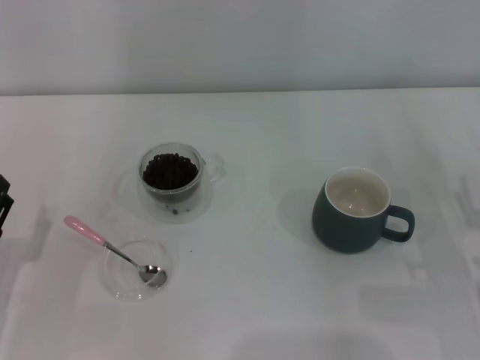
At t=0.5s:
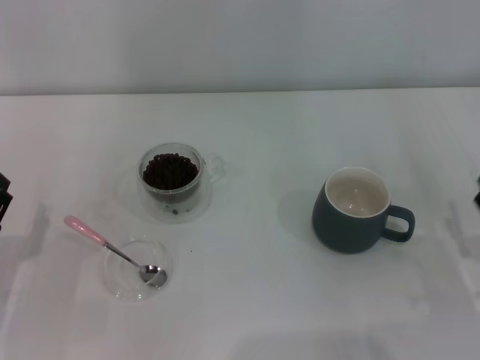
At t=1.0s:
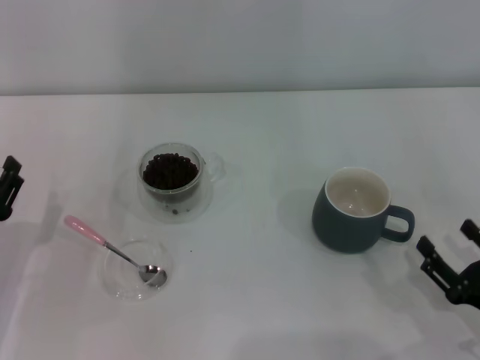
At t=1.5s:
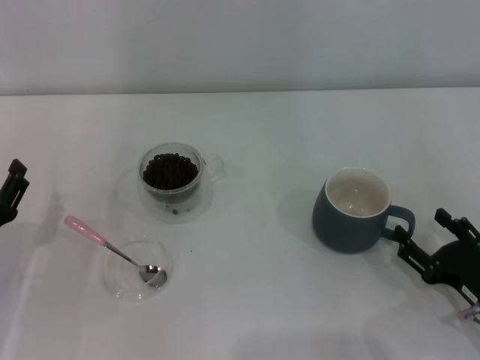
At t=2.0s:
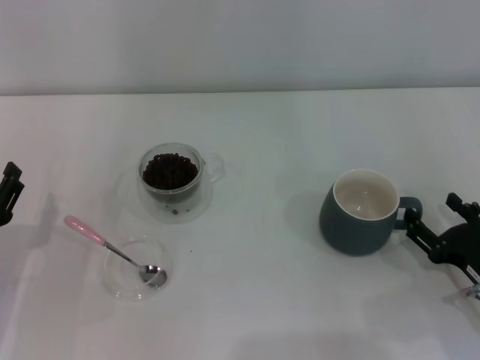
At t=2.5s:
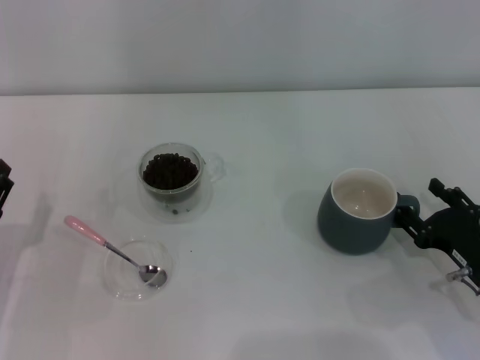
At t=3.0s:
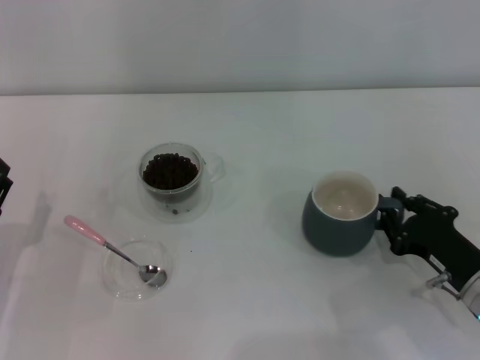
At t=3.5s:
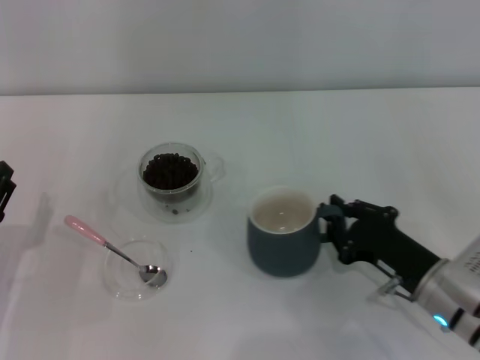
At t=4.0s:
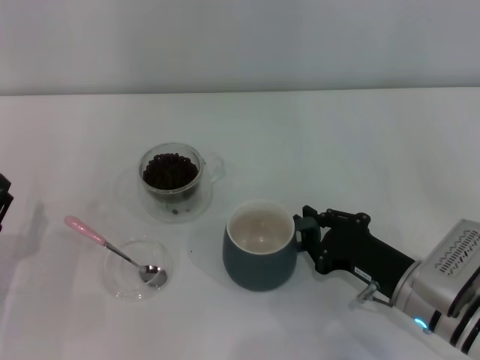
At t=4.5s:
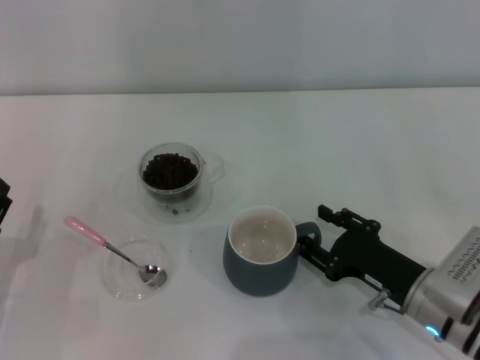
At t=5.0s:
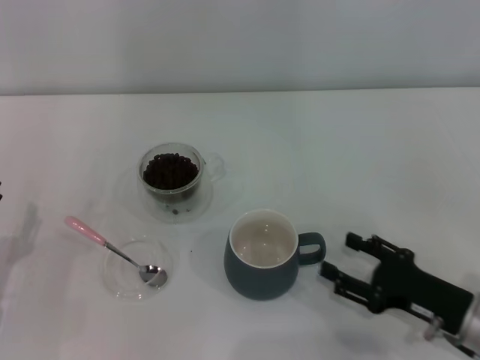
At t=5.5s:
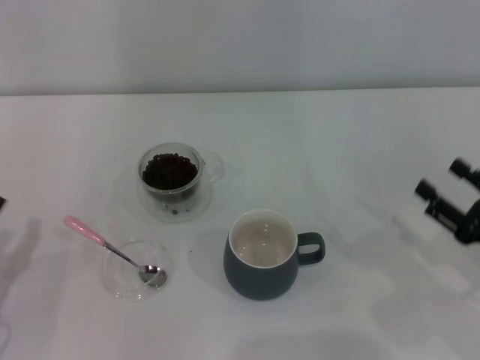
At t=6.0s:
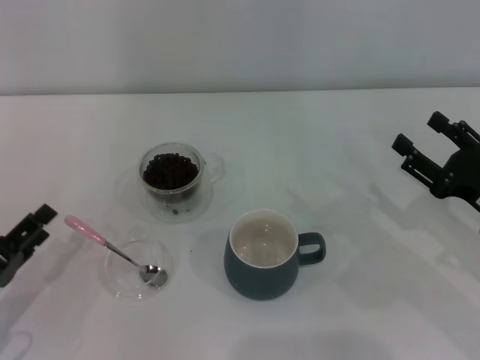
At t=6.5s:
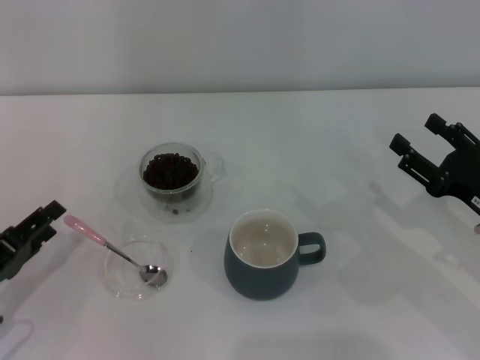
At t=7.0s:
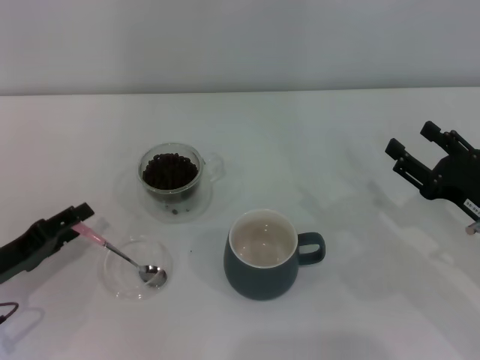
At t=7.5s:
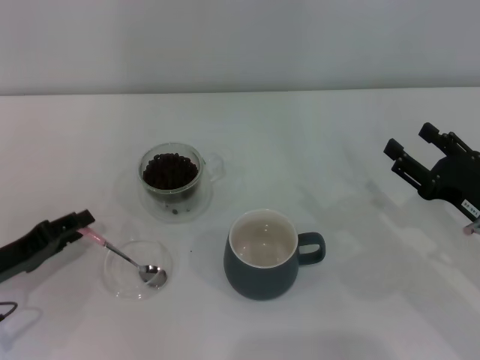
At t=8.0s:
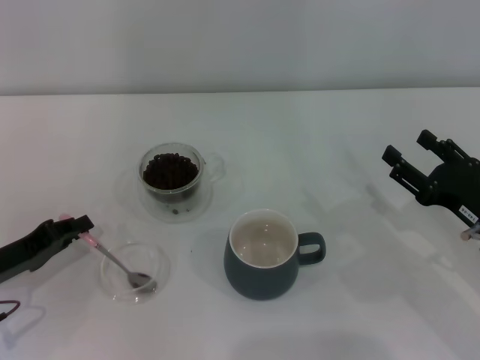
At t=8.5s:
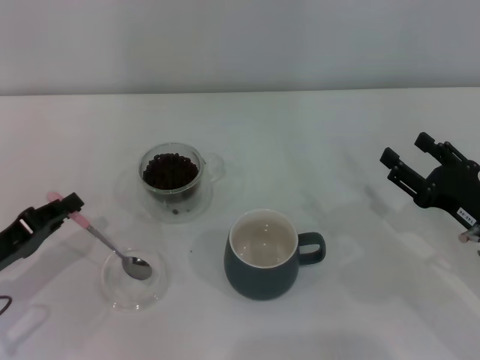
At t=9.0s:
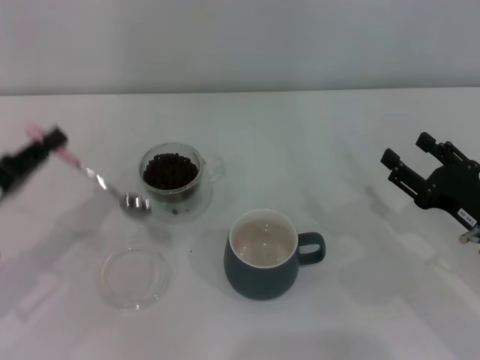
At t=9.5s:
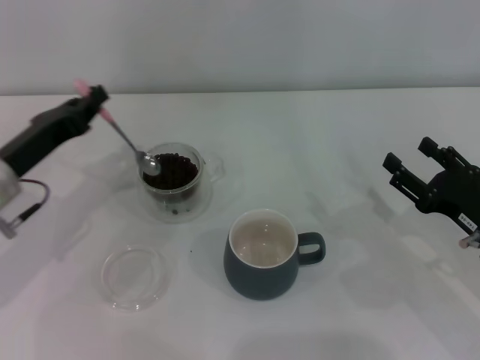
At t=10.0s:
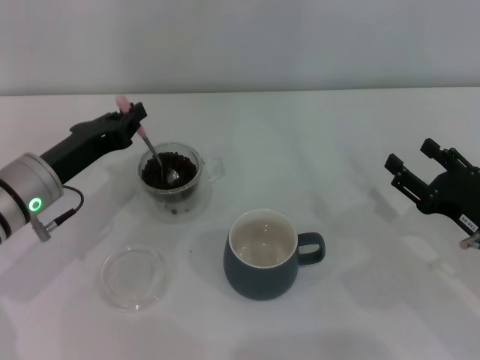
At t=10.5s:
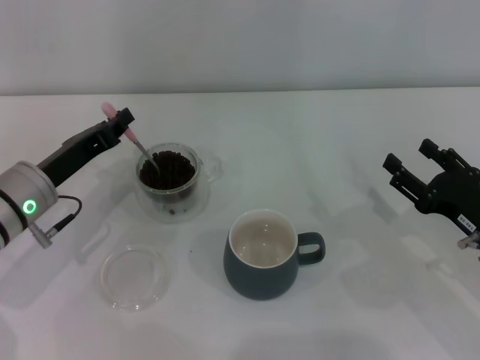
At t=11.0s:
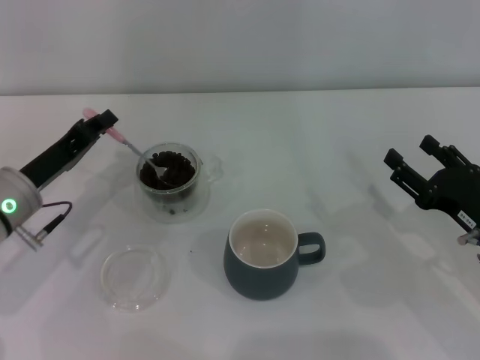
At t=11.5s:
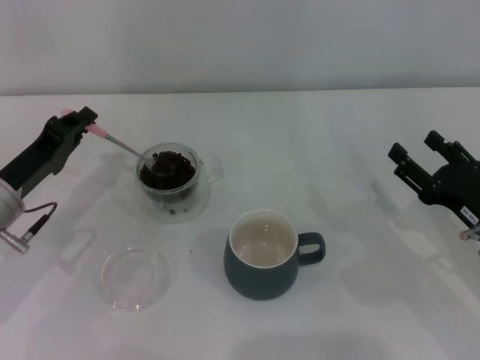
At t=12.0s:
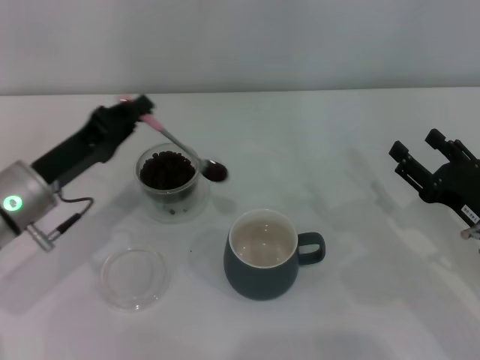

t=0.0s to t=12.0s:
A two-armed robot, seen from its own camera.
Task of the whole recording: Use a pink spoon to take out the coffee beans from the glass and pour them into the gray cup.
Step, t=0.0s to t=5.0s: Move the cup to the center of view with the left gripper.
Step, t=5.5s to t=8.5s: Pick up the spoon with the right gripper.
t=2.0s to t=4.0s: The right gripper heads to the left, covering roughly 10 cm, and closes up.
t=4.0s to t=6.0s: The right gripper heads to the right and upward, covering about 10 cm, and opens its fingers.
t=6.0s to t=8.0s: The left gripper heads forward, covering approximately 5 cm, and closes.
t=8.0s to t=10.0s: The left gripper heads to the right and forward, covering some 10 cm.

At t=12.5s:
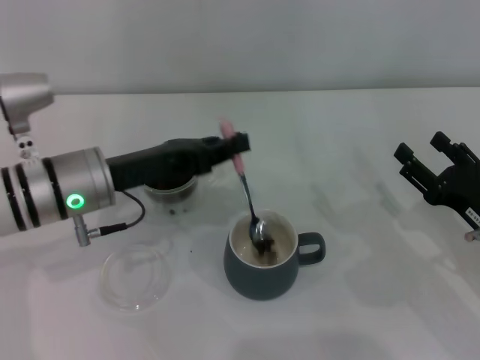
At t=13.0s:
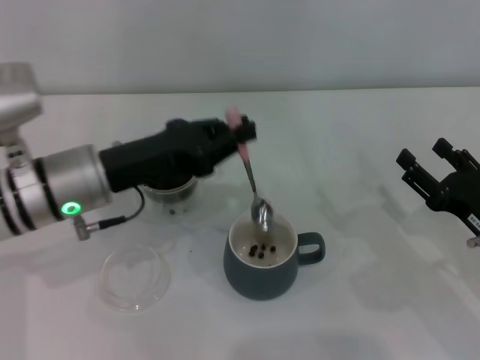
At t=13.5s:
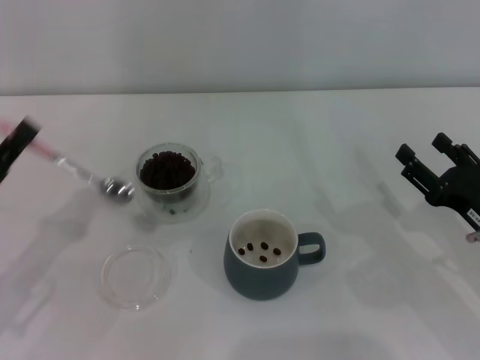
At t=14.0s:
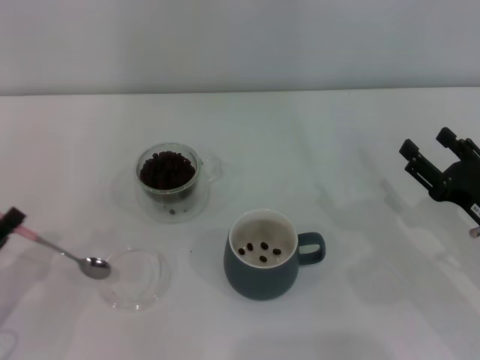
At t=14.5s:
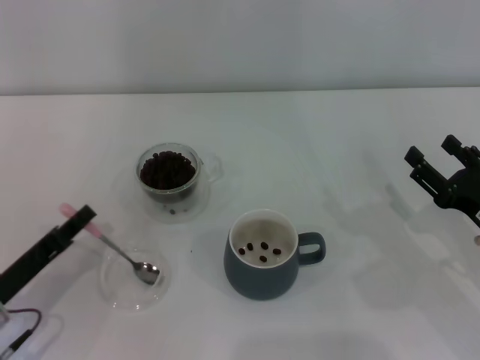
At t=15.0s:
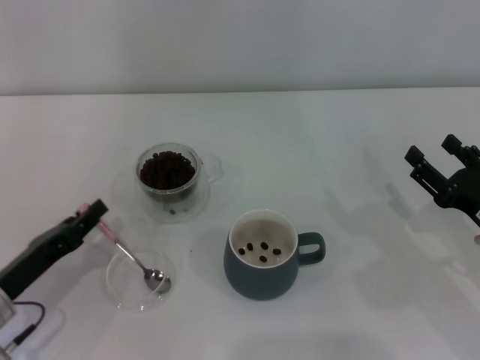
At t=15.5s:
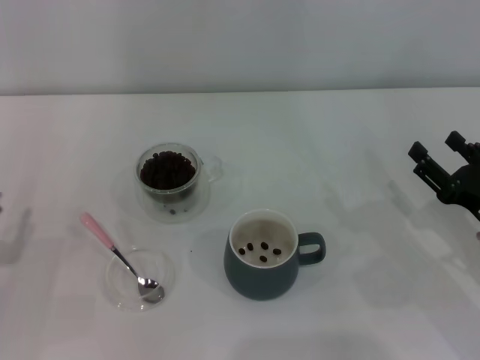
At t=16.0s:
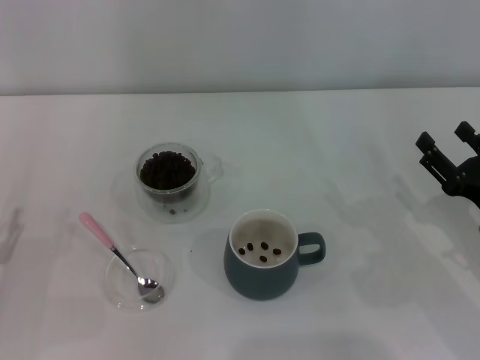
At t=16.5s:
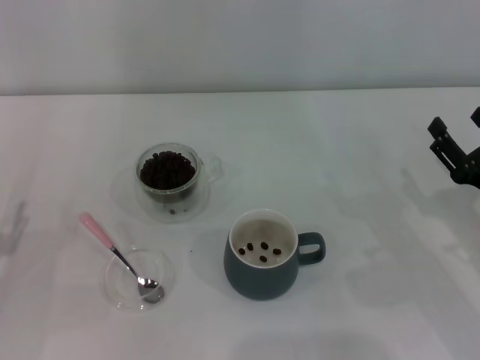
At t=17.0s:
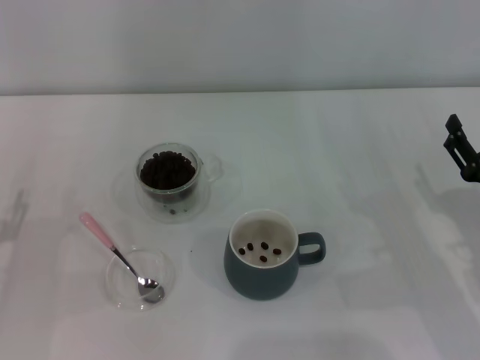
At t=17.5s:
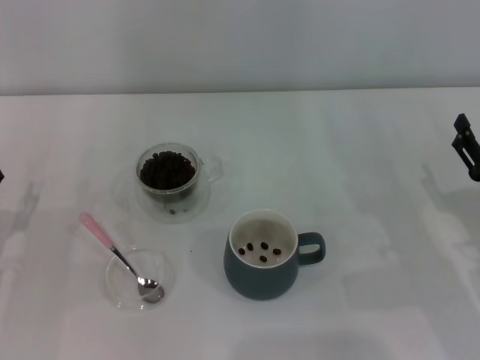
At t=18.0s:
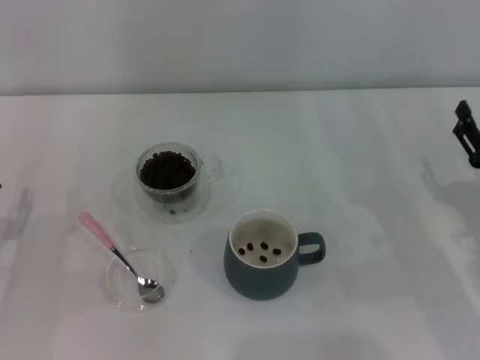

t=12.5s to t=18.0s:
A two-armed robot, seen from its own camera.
Task of the whole recording: Use a pink spoon to take out the coffee beans from the glass and pour them into the gray cup.
t=12.5s to t=14.5s: The left gripper moves to the left, backward and downward, some 20 cm.
t=14.5s to t=16.0s: The left gripper is displaced to the left by about 5 cm, and opens its fingers.
t=16.0s to t=18.0s: There are only small adjustments of the grippers.
